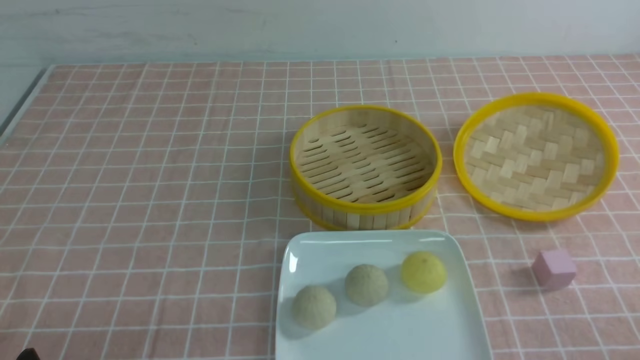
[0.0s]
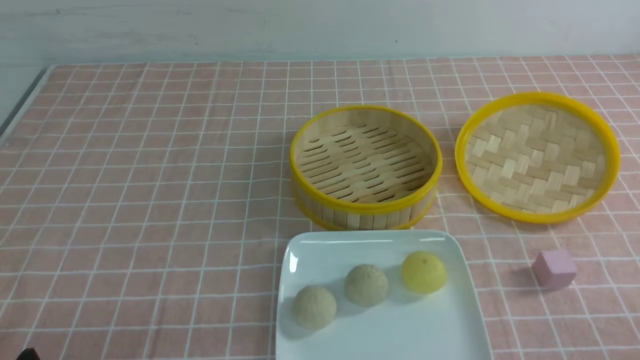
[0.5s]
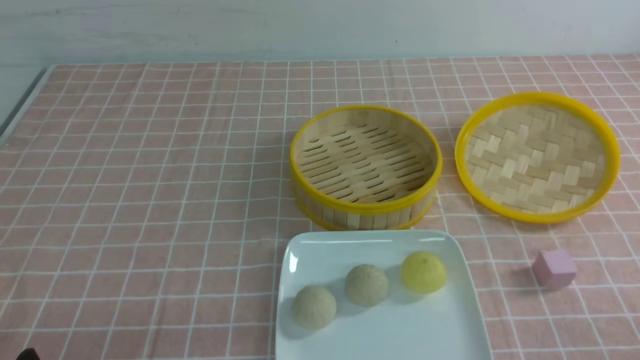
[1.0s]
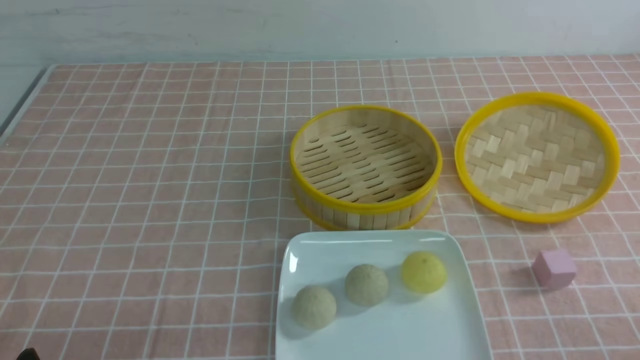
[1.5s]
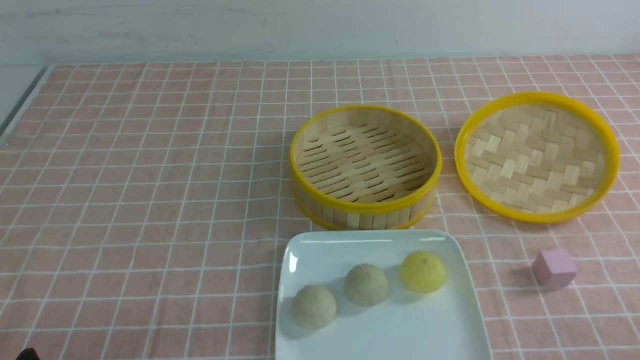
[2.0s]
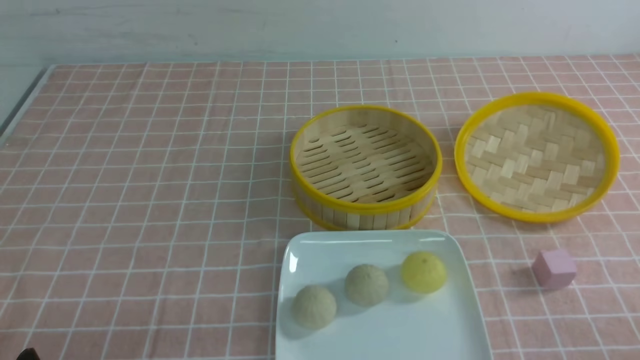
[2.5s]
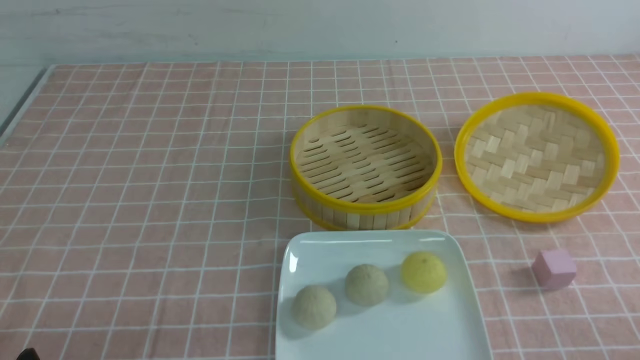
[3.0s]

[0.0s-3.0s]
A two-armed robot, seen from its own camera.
1.5s to 3.0s: Both grippers stay about where they are.
